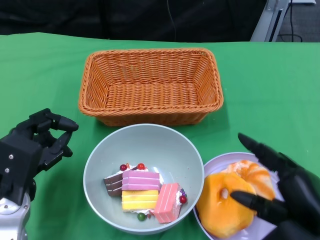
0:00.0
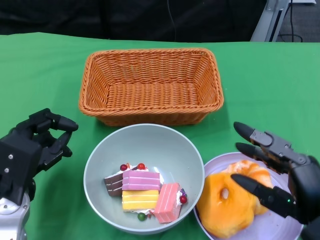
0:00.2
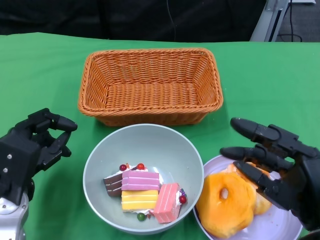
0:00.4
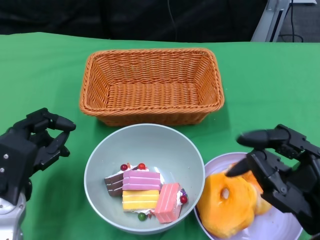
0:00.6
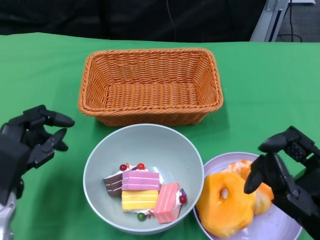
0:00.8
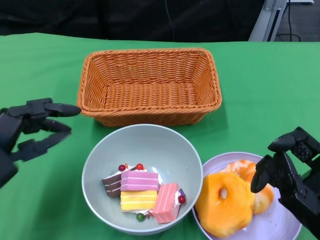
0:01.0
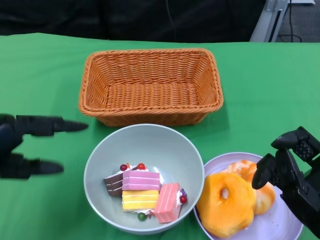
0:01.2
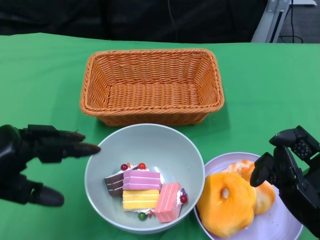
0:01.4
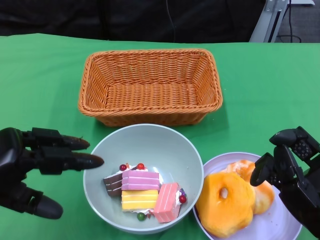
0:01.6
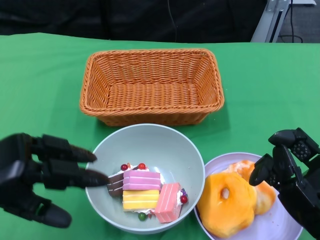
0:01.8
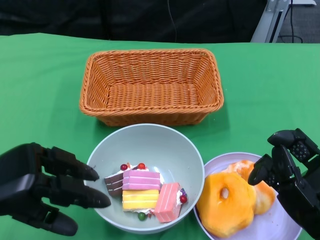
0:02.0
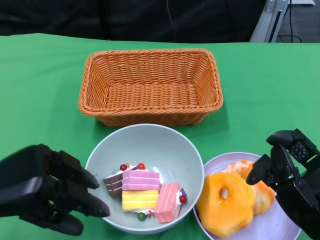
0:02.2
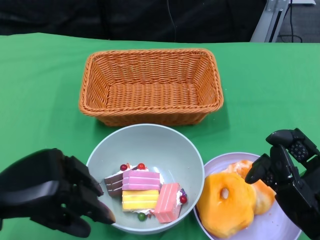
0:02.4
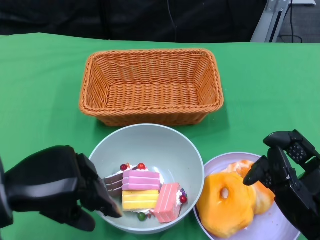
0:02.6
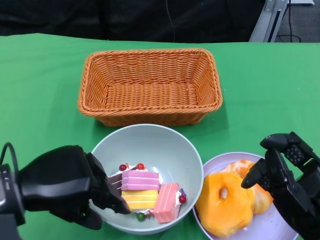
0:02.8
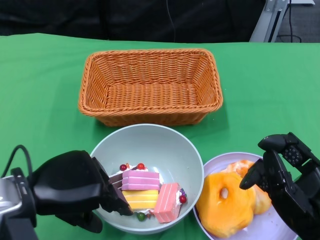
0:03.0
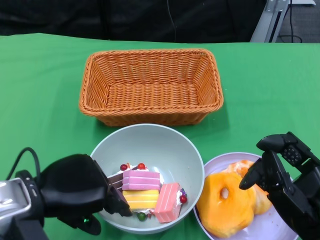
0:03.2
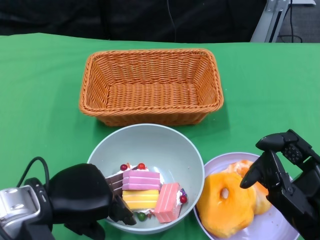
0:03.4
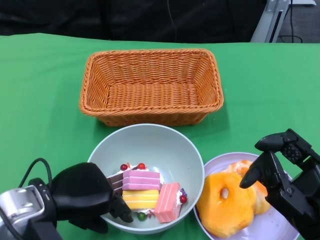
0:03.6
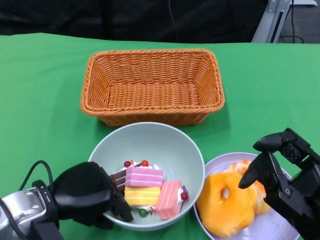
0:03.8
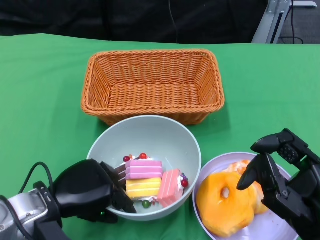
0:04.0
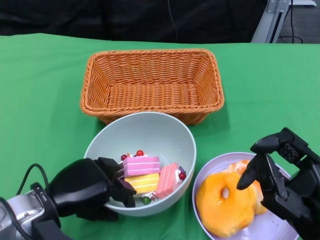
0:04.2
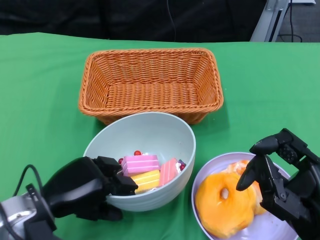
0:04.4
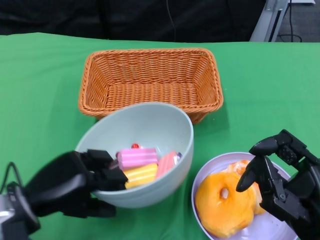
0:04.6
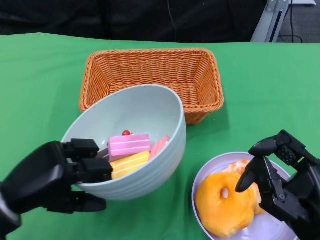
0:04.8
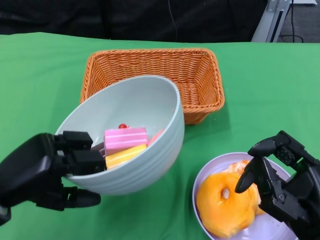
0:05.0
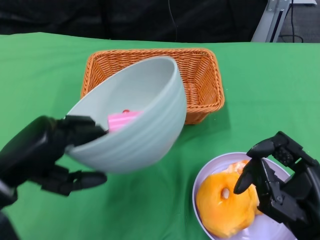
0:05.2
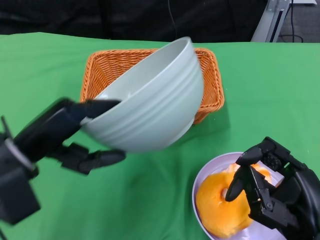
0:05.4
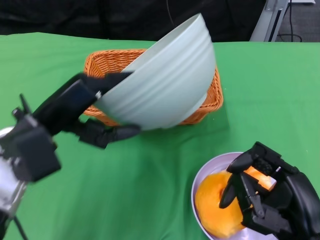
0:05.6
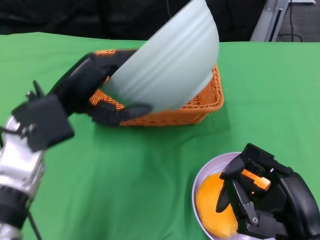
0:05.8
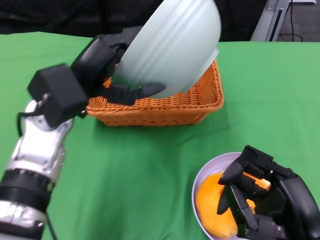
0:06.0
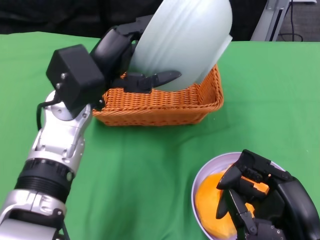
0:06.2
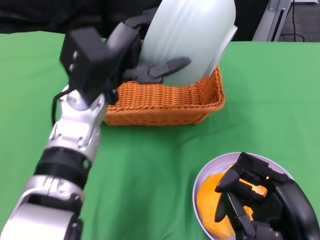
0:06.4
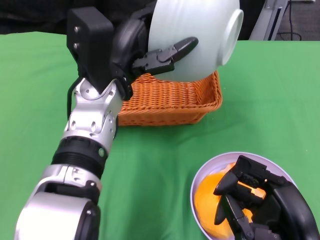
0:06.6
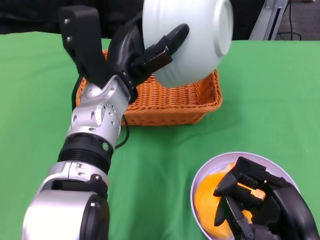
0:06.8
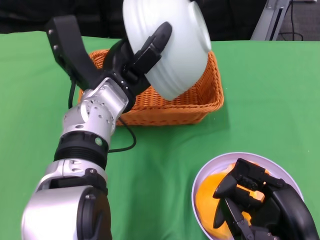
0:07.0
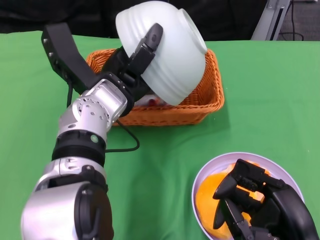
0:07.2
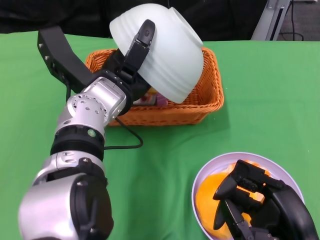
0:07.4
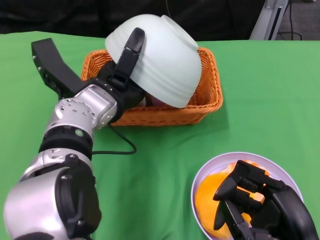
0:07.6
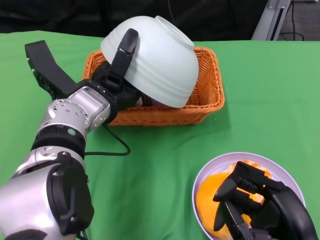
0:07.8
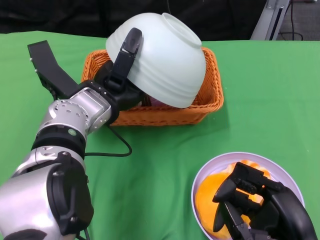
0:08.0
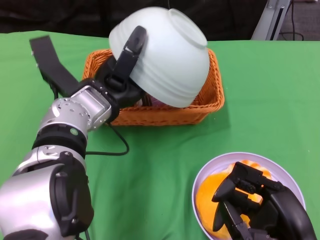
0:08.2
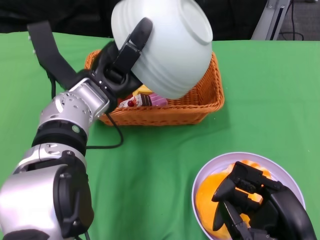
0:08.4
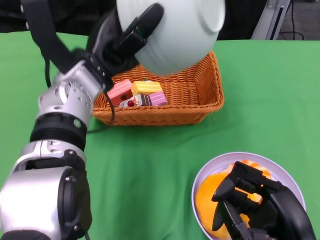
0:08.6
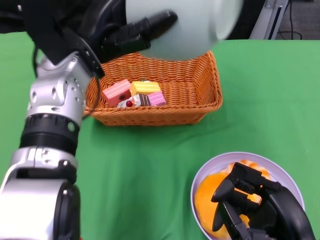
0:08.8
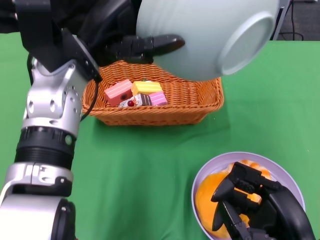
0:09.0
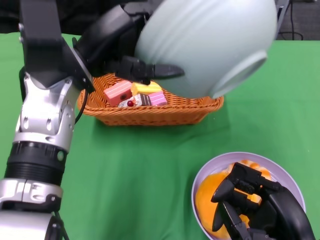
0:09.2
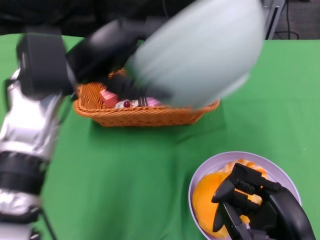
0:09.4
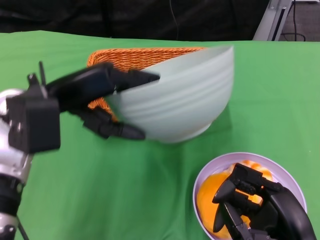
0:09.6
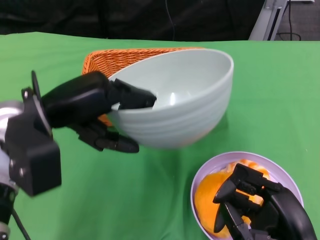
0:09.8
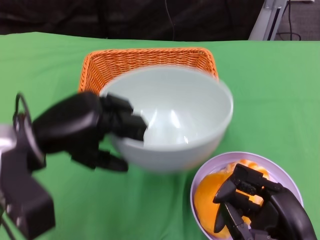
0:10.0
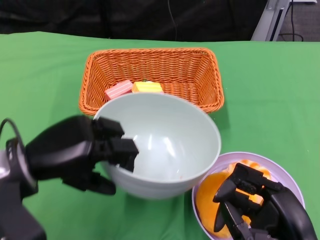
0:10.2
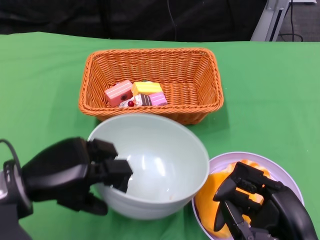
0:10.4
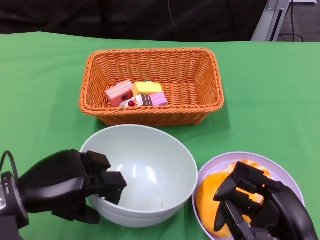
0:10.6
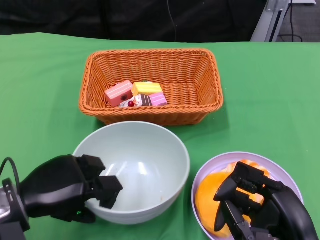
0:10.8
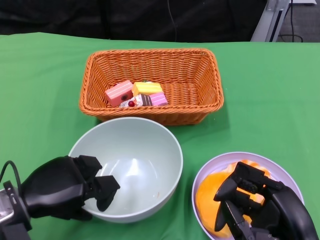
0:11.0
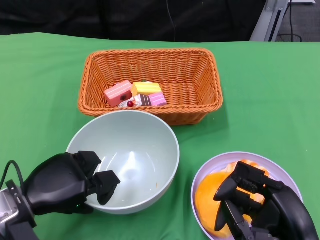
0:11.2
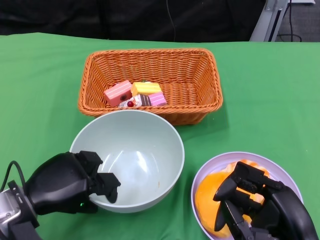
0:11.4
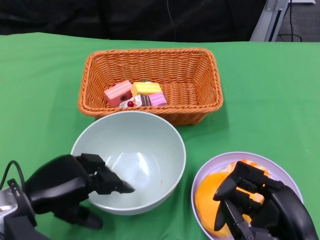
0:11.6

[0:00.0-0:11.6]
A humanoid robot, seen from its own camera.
Step, 0:00.0 to 0:03.6: Grasp the bowl with the left gripper.
Step, 0:03.8 to 0:08.4: Pour the cake into the basket with the left gripper.
Step, 0:08.6 to 0:11.6: Place the bowl on the table with the left gripper.
0:00.0 to 0:01.4: The left hand goes about 10 cm upward and to the left.
0:01.4 to 0:02.8: The left hand travels to the right by about 5 cm.
0:02.8 to 0:04.4: The left hand heads downward, covering about 10 cm.
0:04.4 to 0:05.8: The left hand moves upward and forward, about 15 cm.
0:05.8 to 0:07.2: The left hand travels to the right by about 10 cm.
0:07.2 to 0:08.8: The left hand heads upward, covering approximately 5 cm.
0:08.8 to 0:10.2: The left hand is displaced backward, to the left and downward by approximately 15 cm.
0:10.2 to 0:11.6: The left hand is displaced downward by roughly 5 cm.

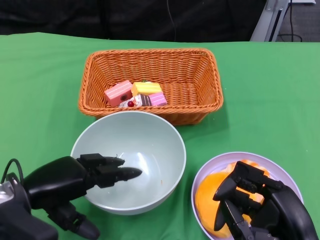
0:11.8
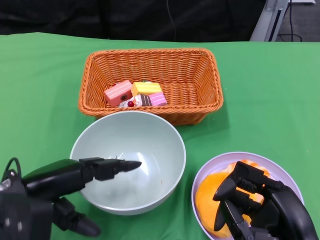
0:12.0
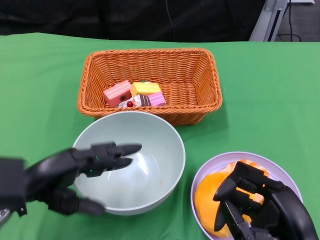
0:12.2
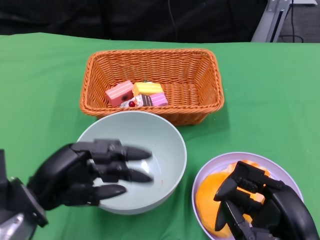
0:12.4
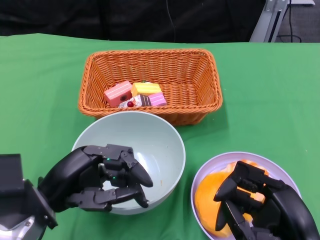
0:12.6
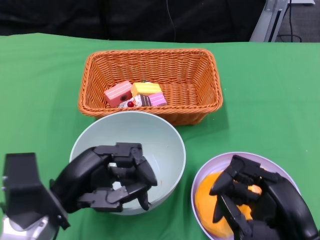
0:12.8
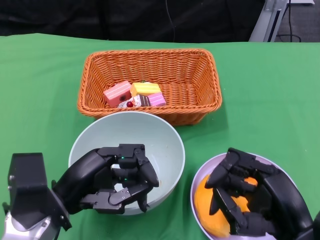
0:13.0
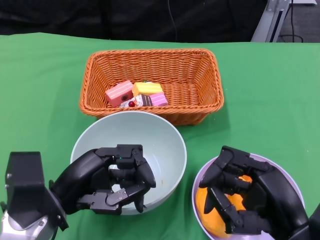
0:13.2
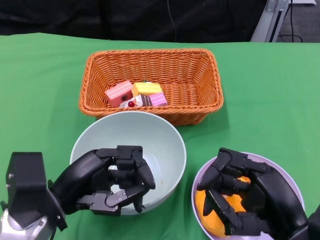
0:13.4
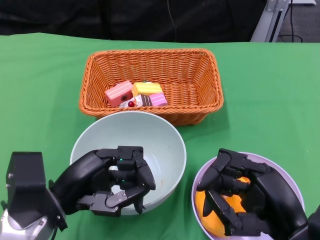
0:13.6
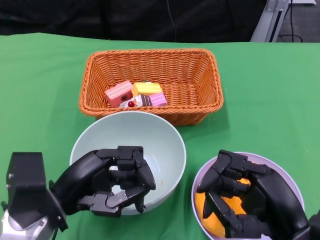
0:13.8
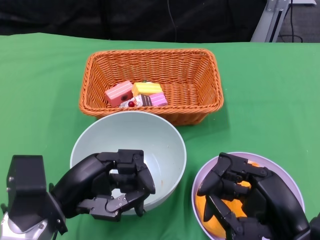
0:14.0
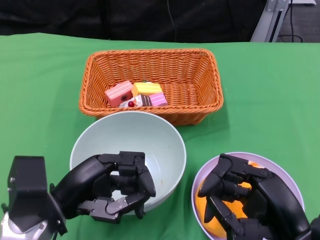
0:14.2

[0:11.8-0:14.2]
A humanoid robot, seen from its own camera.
0:11.8 to 0:13.0: The left hand shifts by some 5 cm.
0:13.0 to 0:14.2: Both hands stay about where they are.

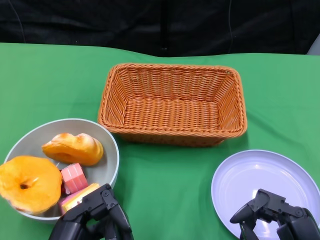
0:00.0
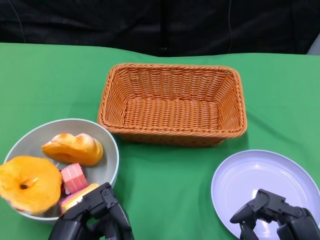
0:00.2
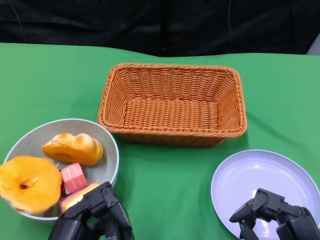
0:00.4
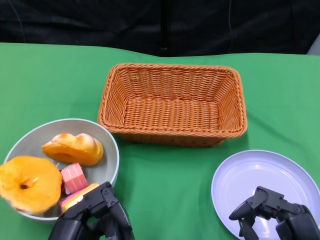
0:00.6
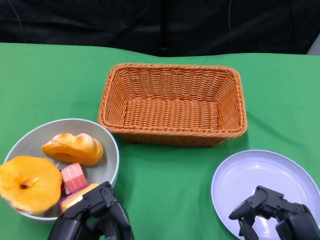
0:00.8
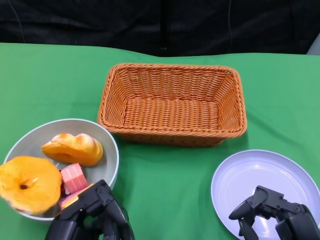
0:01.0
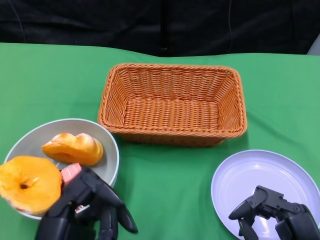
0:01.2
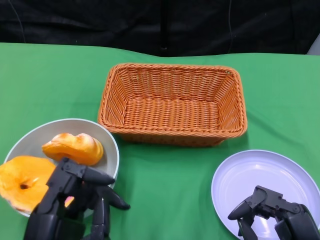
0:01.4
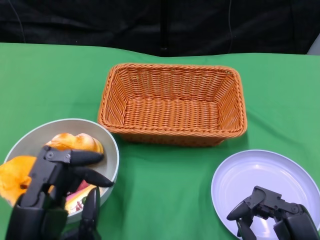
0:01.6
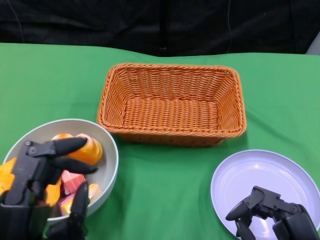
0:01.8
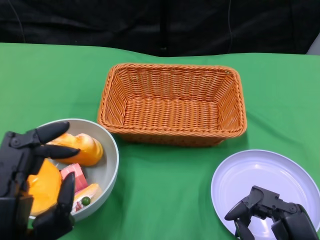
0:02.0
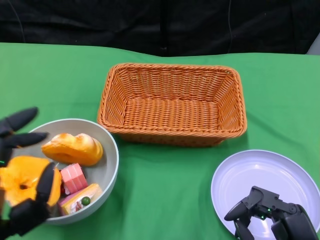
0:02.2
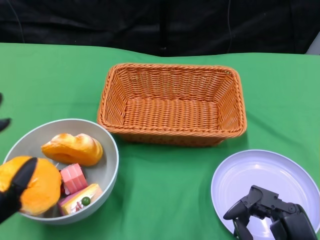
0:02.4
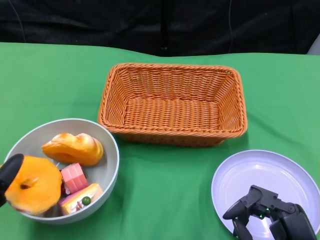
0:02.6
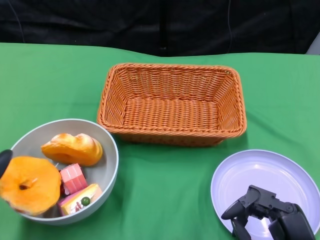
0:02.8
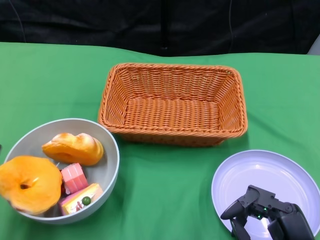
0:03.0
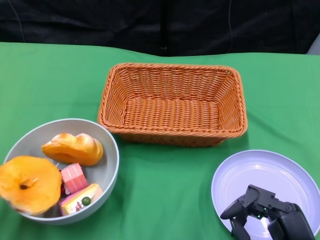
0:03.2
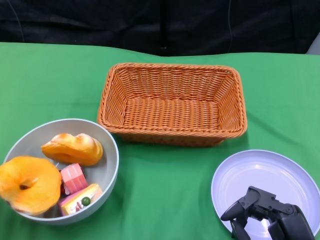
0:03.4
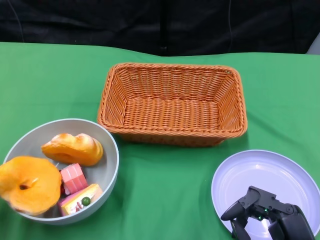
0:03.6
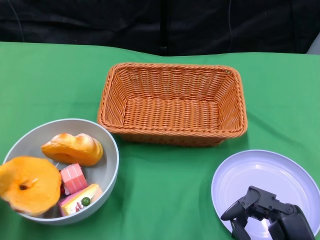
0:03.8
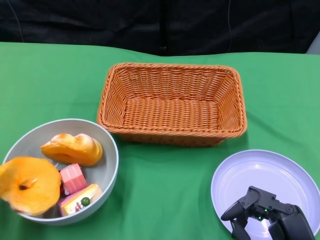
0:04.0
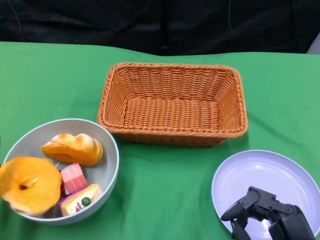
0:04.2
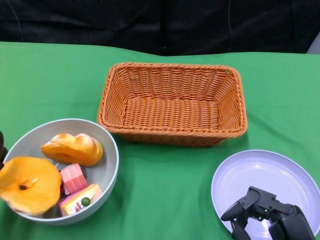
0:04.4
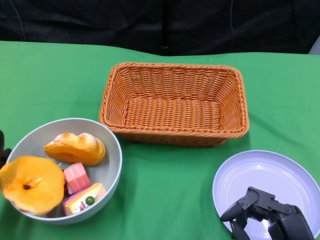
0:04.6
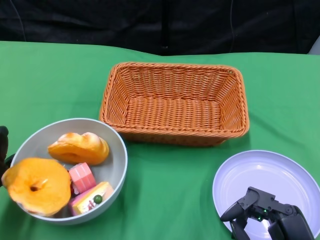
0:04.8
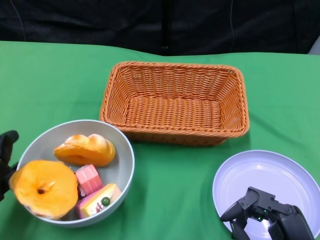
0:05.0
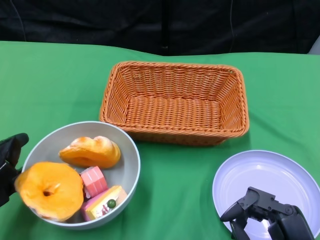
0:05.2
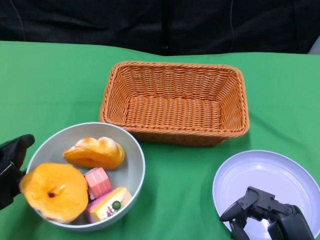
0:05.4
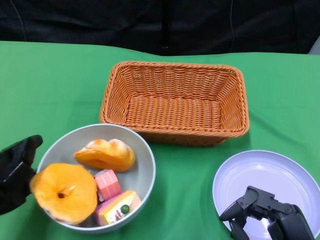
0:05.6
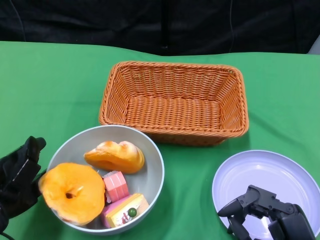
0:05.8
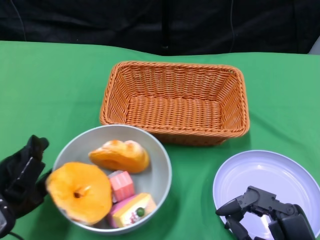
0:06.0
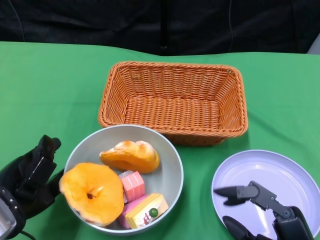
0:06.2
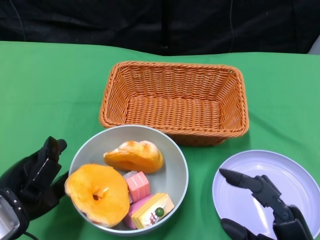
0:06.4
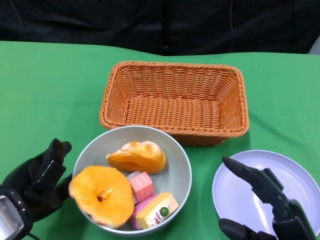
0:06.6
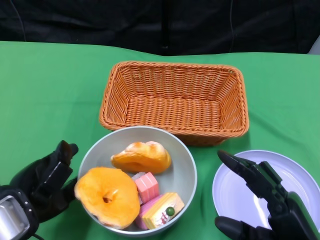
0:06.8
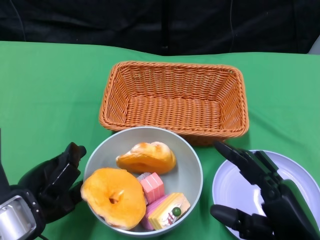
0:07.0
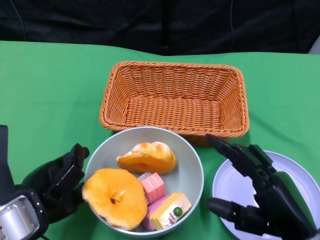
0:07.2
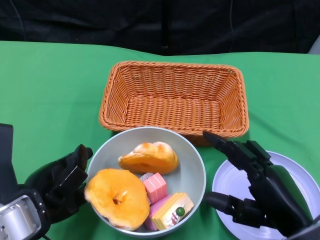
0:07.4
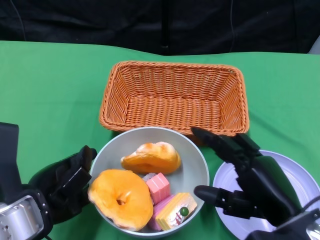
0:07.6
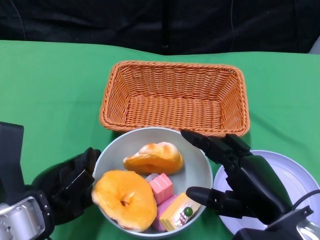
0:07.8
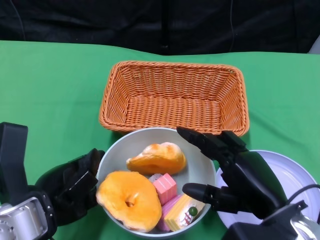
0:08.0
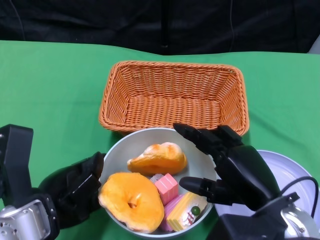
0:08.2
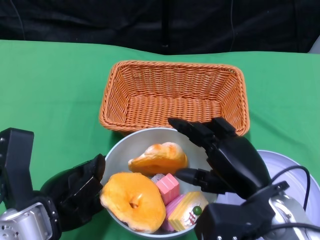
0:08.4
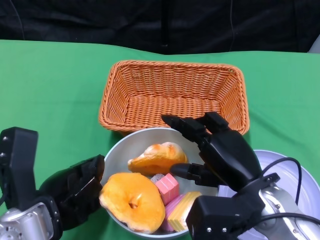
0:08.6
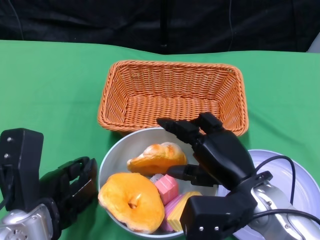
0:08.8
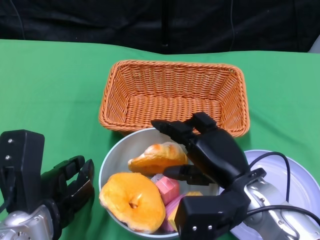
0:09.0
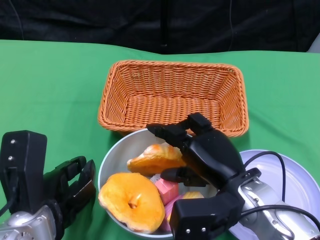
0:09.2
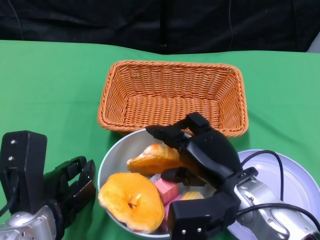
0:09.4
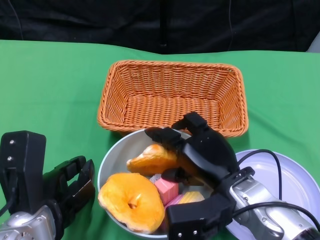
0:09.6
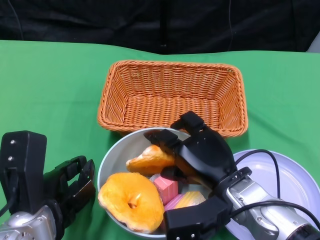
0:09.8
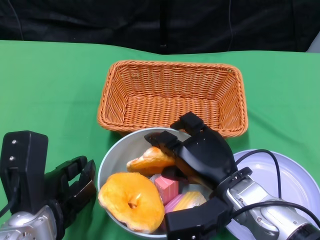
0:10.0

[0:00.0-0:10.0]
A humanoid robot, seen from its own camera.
Step, 0:00.0 to 0:09.0: Push the bowl to the center of the table using the left gripper.
0:01.4 to 0:02.8: The left hand travels to the left by about 10 cm.
0:02.8 to 0:04.2: The left hand goes roughly 10 cm forward.
0:05.8 to 0:07.2: The left hand moves to the right, some 5 cm. The right hand ends up about 5 cm from where it was.
0:07.2 to 0:08.6: The right hand heads forward and to the left, covering roughly 10 cm.
